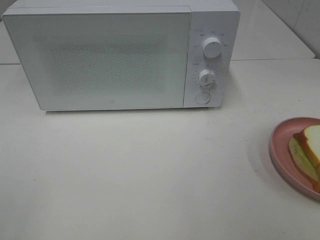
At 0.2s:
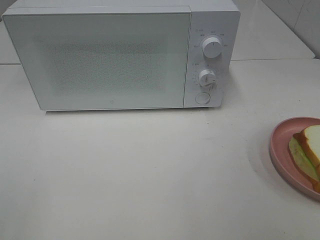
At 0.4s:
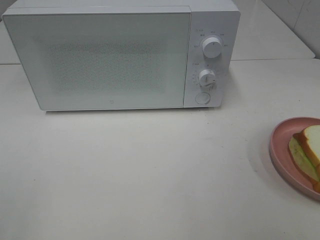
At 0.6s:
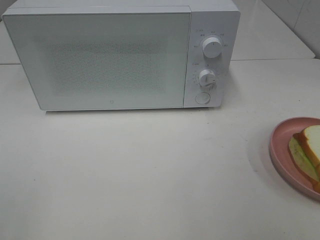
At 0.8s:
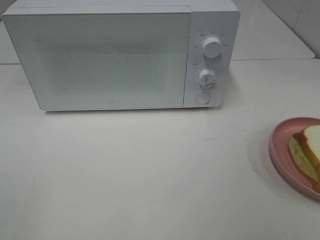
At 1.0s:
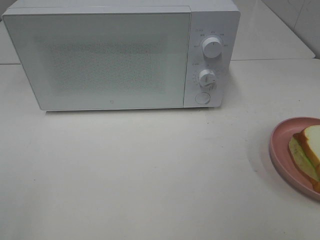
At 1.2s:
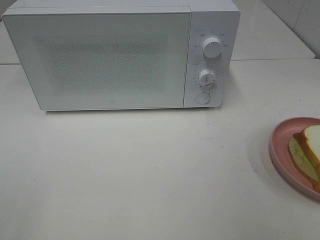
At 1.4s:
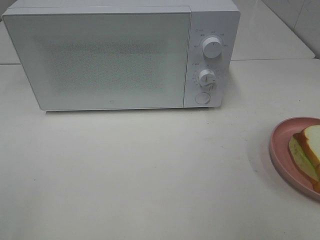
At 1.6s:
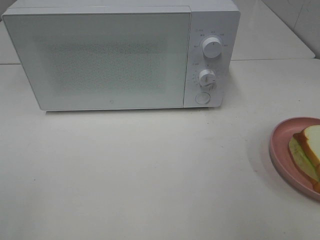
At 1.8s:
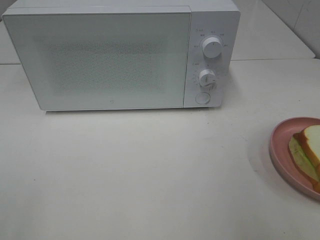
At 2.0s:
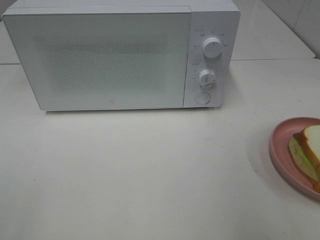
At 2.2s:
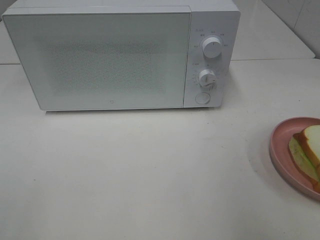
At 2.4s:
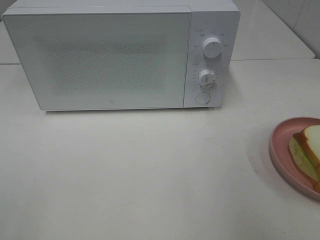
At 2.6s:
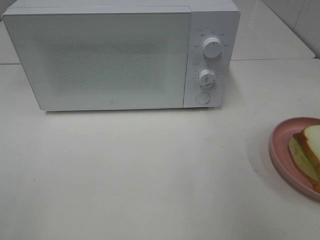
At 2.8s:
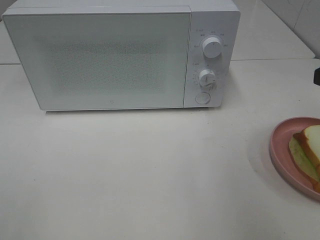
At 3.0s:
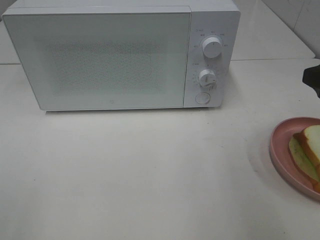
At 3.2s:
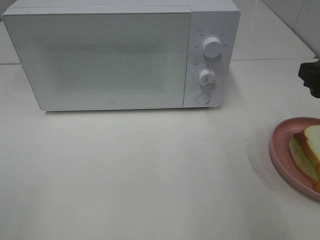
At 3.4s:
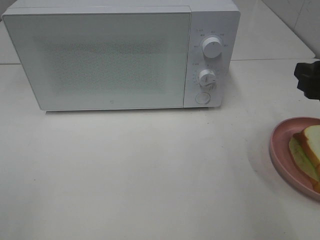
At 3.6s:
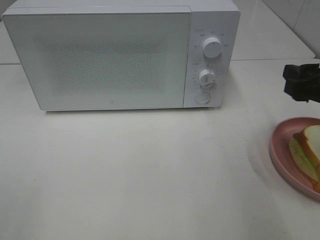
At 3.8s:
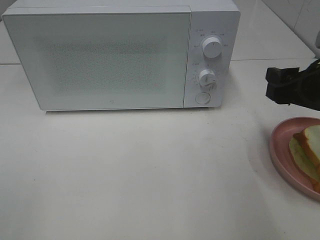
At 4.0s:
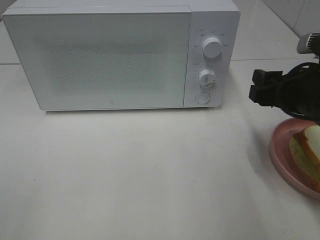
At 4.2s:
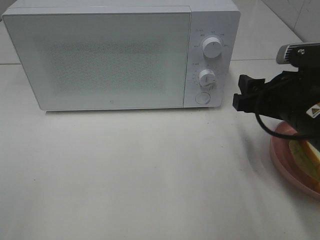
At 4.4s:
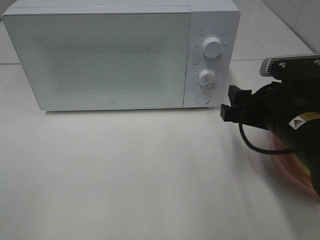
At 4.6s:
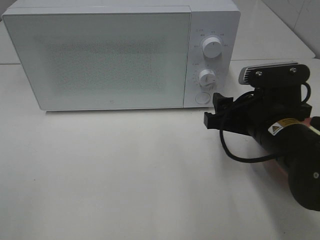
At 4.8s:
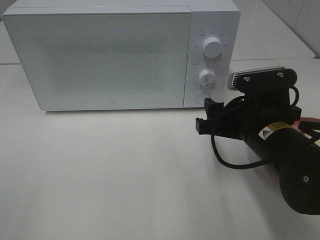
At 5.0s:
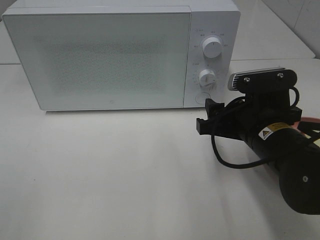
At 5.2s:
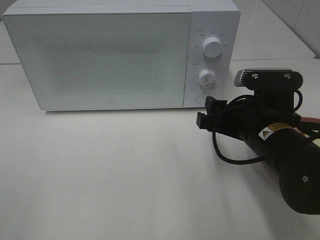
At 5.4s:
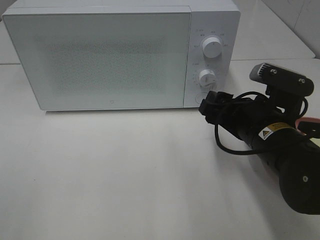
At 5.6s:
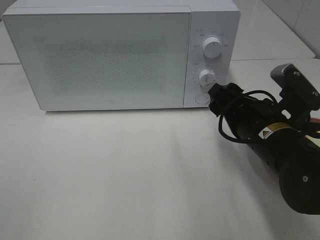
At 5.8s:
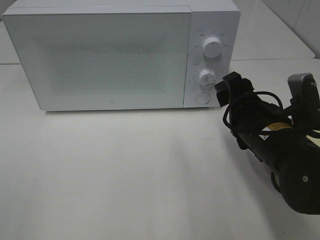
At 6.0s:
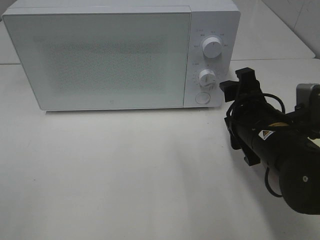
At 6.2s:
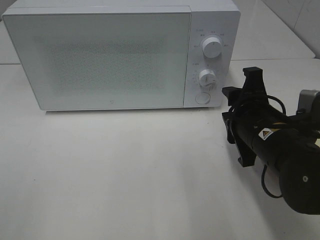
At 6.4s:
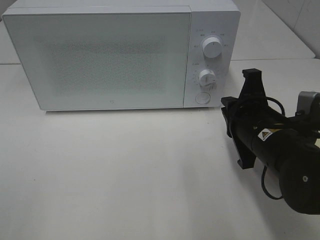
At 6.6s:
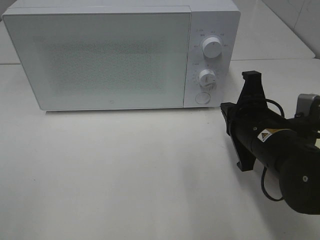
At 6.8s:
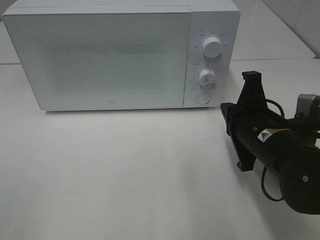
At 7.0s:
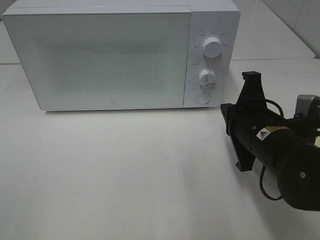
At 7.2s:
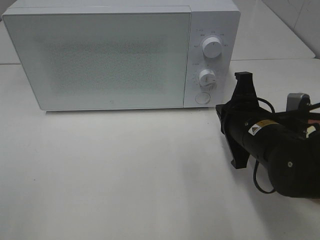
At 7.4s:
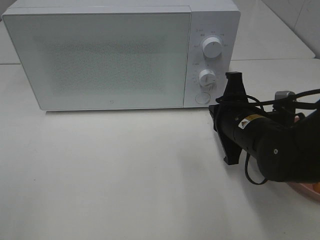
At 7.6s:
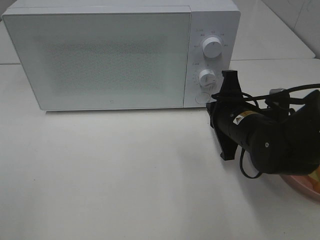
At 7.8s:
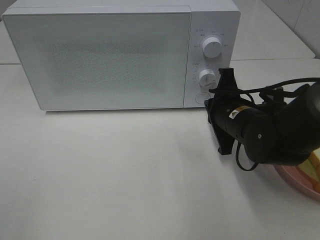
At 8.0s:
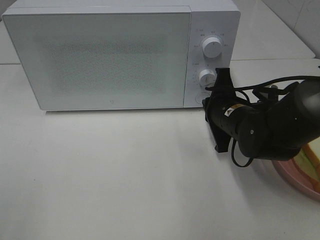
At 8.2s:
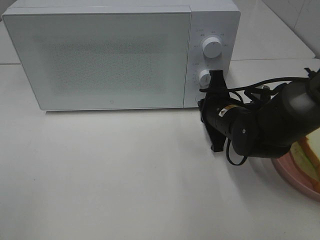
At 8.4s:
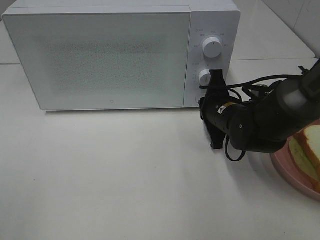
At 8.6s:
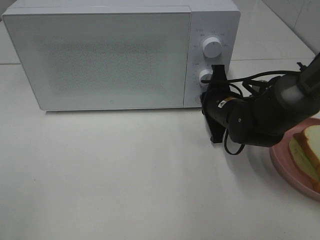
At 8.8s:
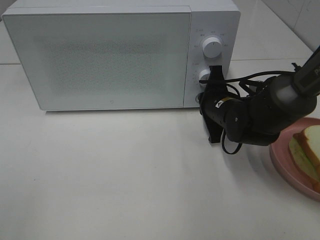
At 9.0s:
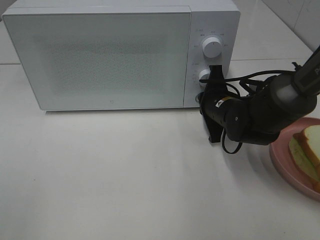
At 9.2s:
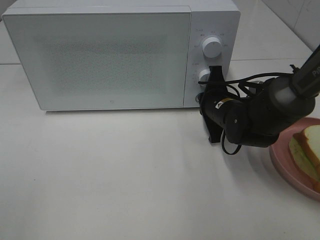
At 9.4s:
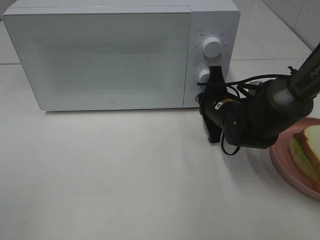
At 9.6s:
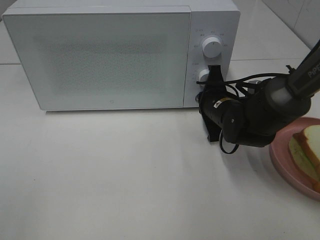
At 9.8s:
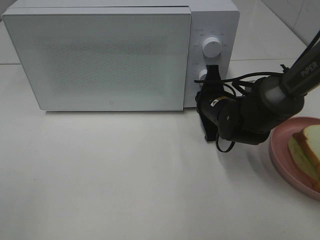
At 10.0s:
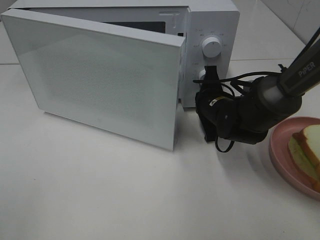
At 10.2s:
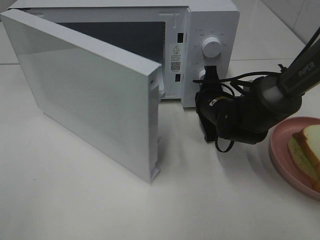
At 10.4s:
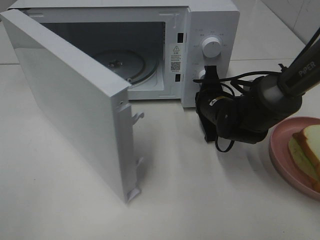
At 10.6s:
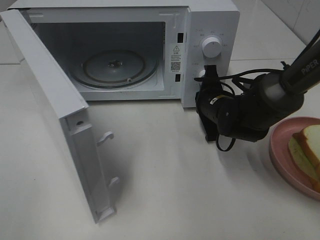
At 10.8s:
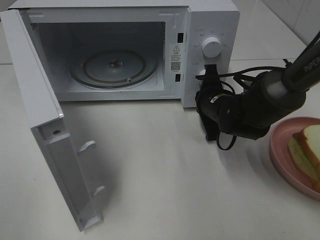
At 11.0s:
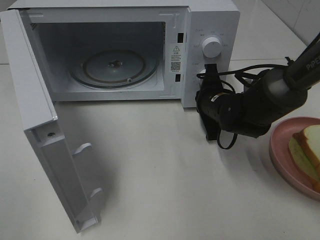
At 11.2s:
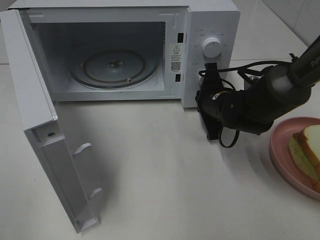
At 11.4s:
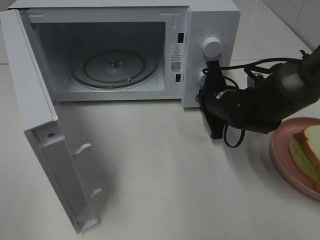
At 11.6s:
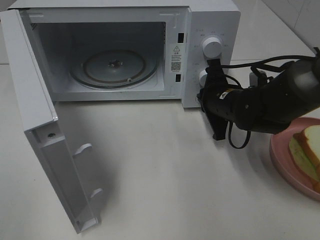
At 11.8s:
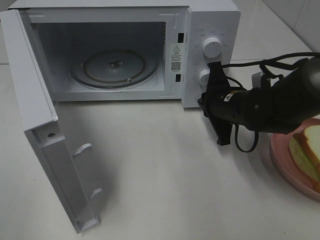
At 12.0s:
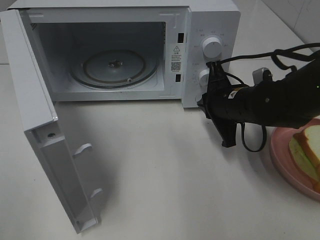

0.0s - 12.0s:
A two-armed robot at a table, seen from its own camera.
Task of the whole recording: Heat Sandwich.
Step, 0.0s - 11.6s: Right hand: press the switch.
1.6s - 3.0s: The right gripper moves forward and downward, about 15 cm.
3.0s - 4.4s: The right gripper travels to the left and downward by about 15 cm.
6.0s - 7.6s: The right gripper shifts some 5 cm forward, and closes its fingers.
7.6s - 9.0s: The right gripper is displaced forward by approximately 5 cm.
10.4s - 12.0s: The right gripper ends up approximately 5 cm from where it was.

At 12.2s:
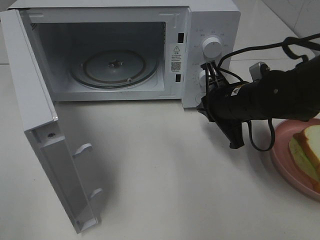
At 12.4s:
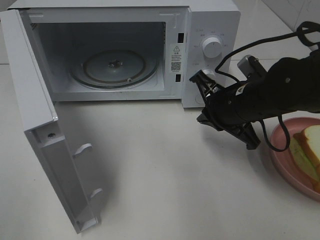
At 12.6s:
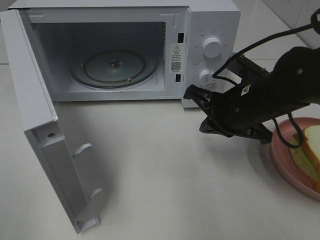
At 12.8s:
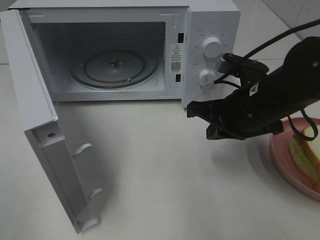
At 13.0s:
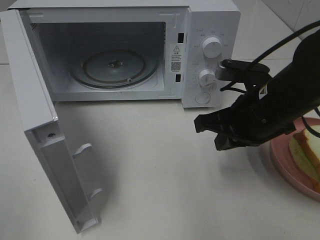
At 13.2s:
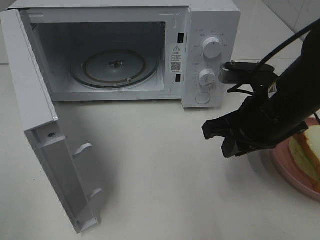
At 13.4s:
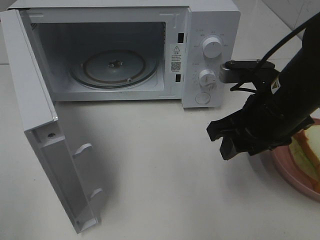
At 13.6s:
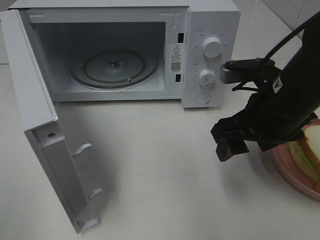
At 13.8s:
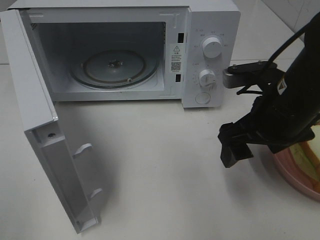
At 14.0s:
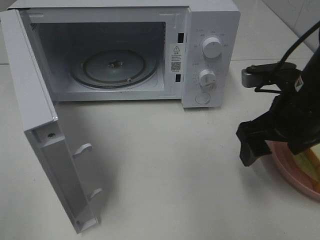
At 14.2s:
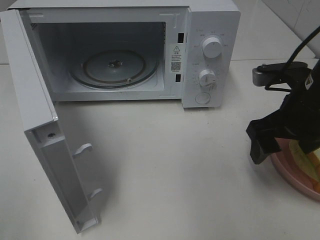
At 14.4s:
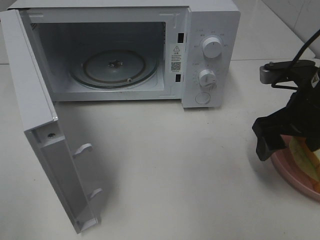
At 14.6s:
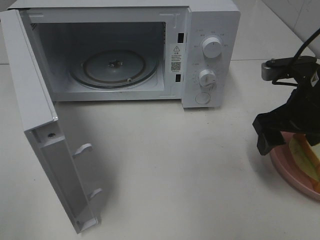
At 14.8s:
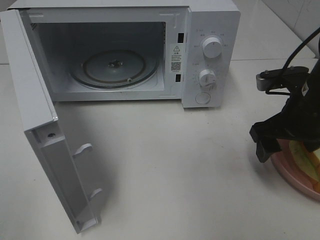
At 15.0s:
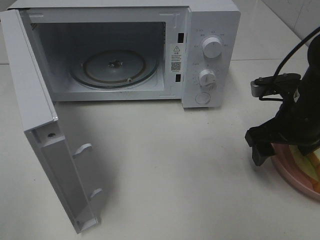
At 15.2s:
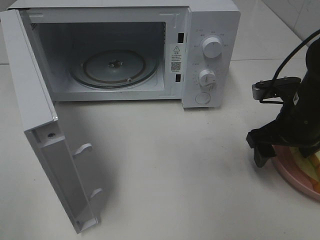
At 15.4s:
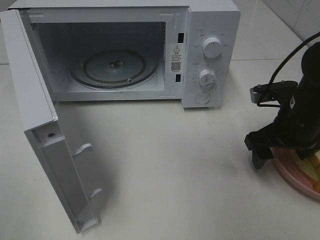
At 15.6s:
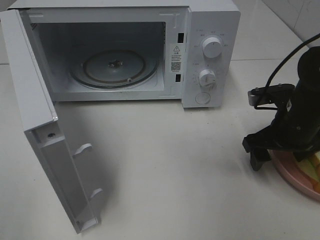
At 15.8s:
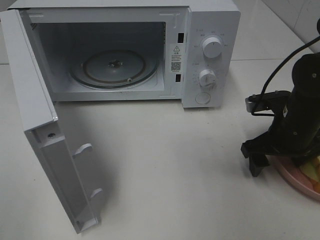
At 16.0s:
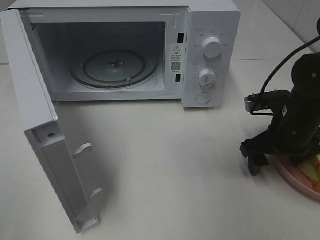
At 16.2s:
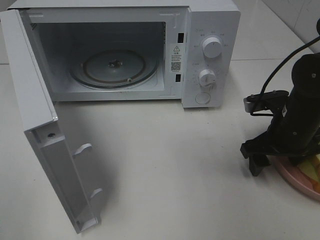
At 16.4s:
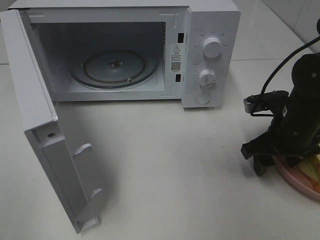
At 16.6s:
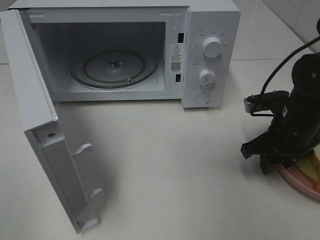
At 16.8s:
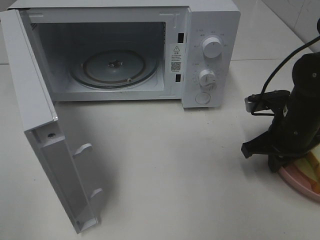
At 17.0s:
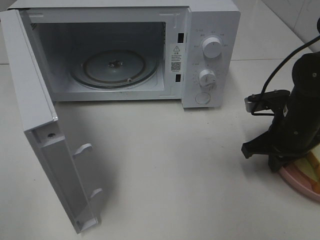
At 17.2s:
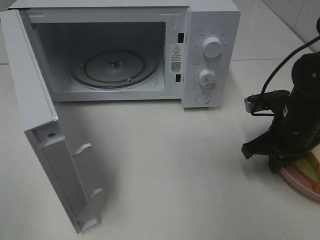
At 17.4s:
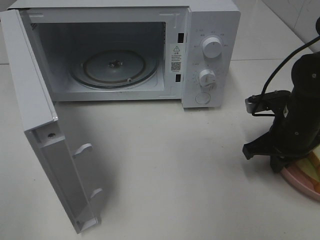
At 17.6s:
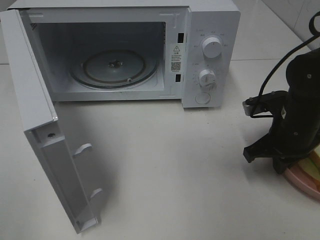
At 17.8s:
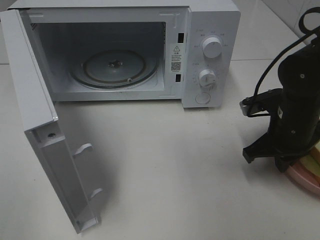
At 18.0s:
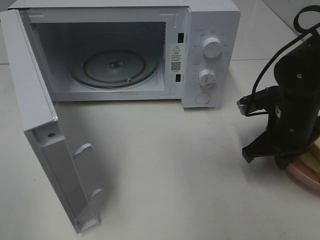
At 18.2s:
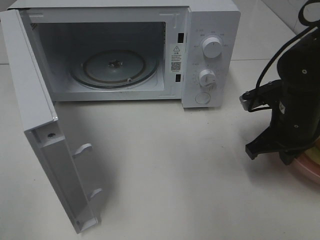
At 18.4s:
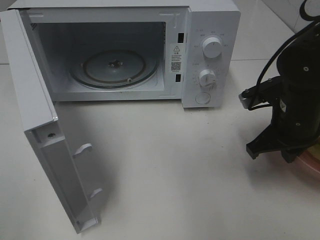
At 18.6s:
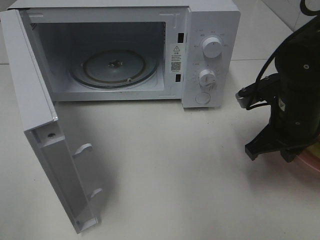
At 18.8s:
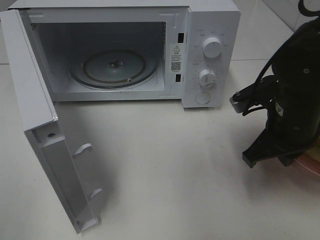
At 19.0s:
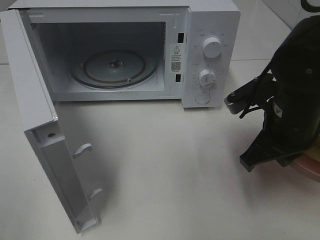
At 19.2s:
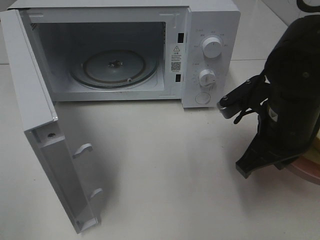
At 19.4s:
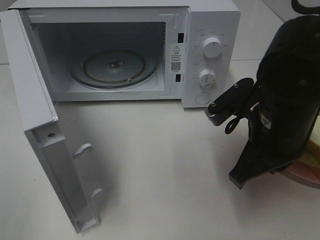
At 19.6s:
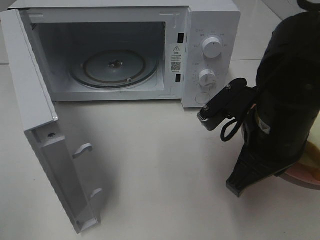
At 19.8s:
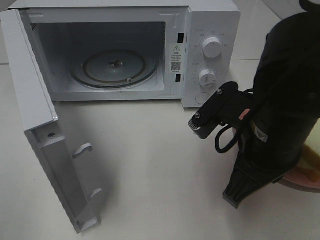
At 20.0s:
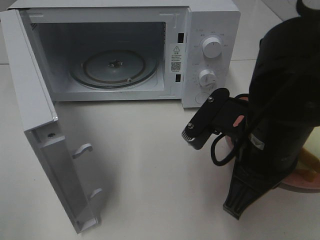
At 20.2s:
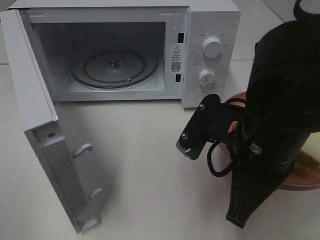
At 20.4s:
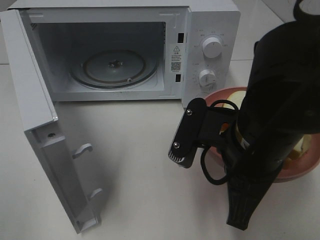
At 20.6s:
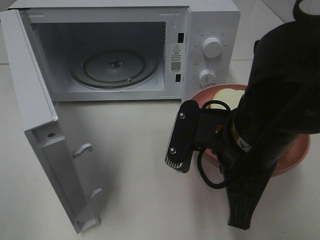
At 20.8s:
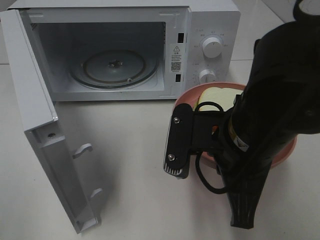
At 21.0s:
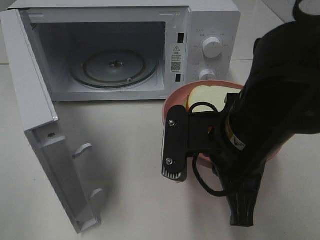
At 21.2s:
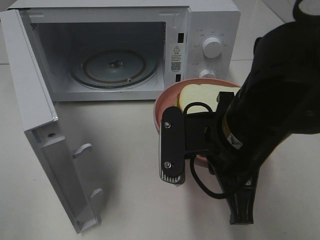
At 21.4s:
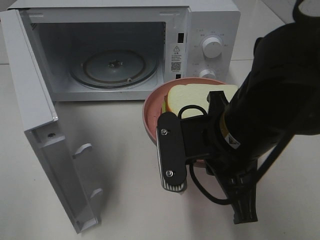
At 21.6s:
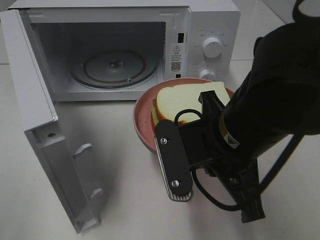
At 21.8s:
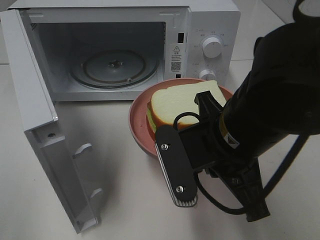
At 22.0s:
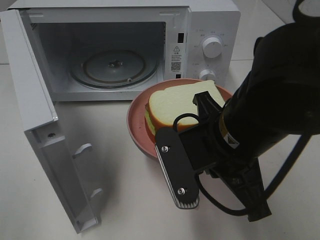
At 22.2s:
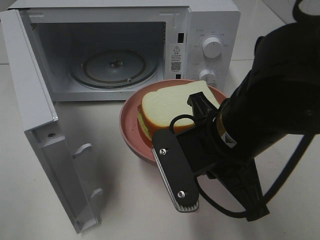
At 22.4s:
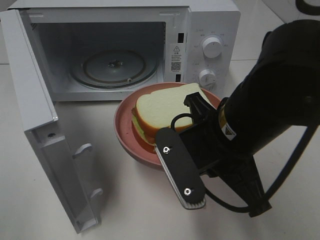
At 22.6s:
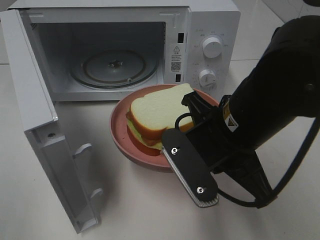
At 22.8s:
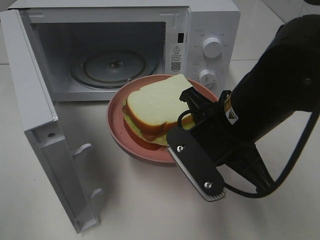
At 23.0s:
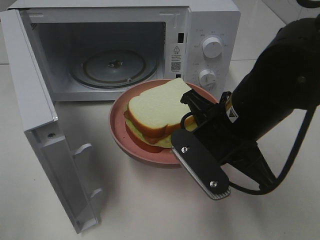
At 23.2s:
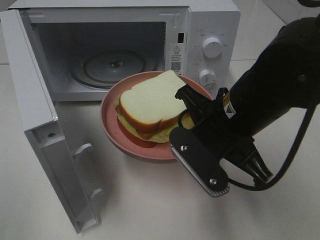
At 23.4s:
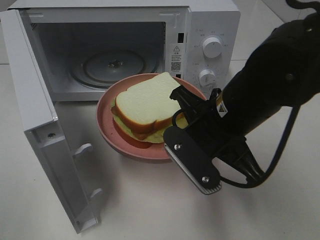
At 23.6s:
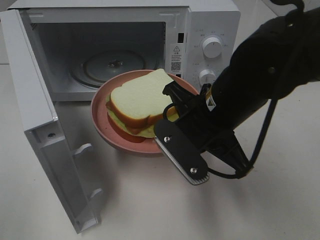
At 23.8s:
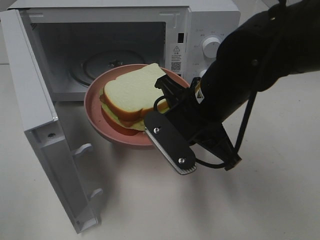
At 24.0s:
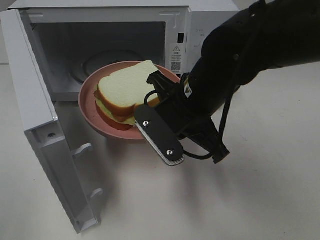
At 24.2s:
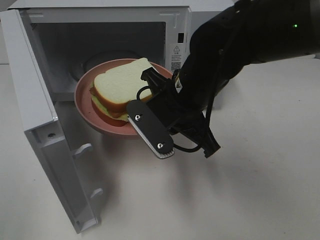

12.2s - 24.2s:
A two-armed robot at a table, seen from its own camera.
Task of the whole recording: Heat Sandwich.
Step, 12.2s - 17.0s: Right hand: grab the plate with the sandwich.
12.2s - 13.8s: The right gripper goes some 10 cm backward and upward, and opens up.
13.8s - 15.2s: The right gripper shifts about 10 cm to the right and downward.
15.2s - 16.6s: The right gripper closes.
16.6s - 18.2s: The right gripper closes its fingers.
18.2s - 19.8s: The right gripper heads backward, to the left and upward, covering approximately 15 cm.
22.6s - 24.2s: The right gripper is displaced forward by some 5 cm.
